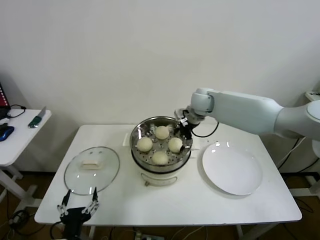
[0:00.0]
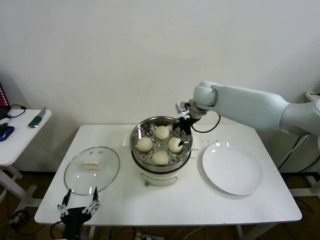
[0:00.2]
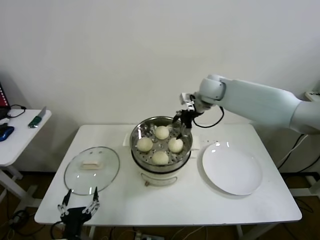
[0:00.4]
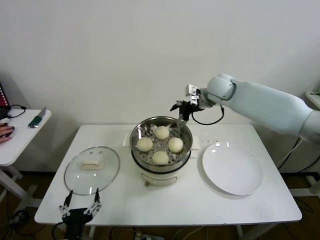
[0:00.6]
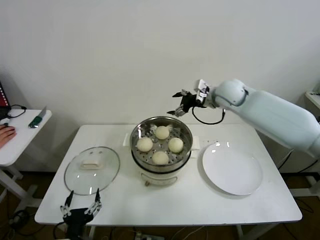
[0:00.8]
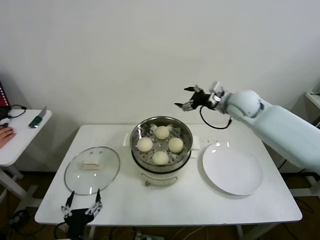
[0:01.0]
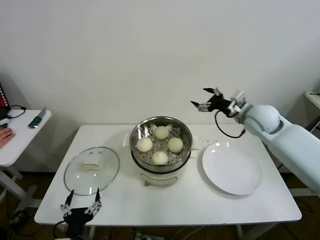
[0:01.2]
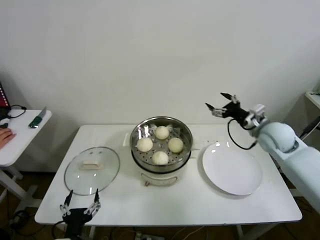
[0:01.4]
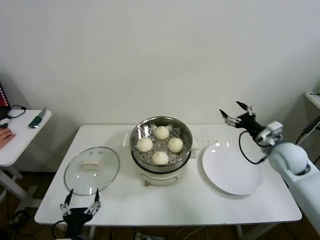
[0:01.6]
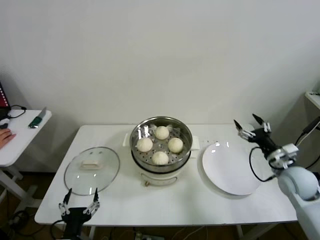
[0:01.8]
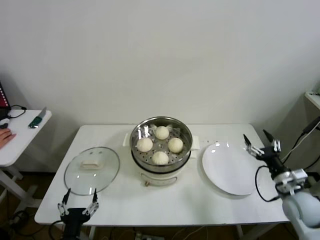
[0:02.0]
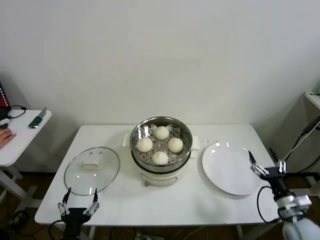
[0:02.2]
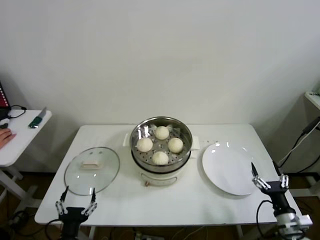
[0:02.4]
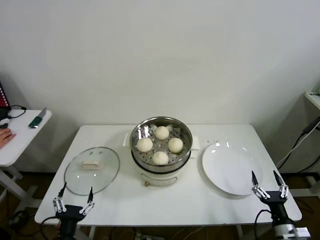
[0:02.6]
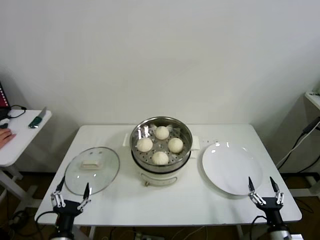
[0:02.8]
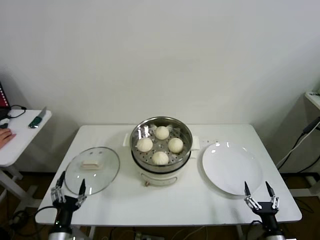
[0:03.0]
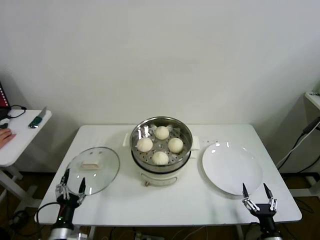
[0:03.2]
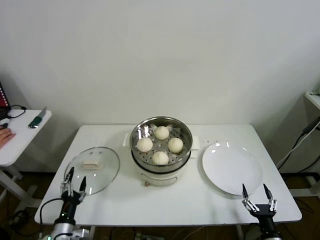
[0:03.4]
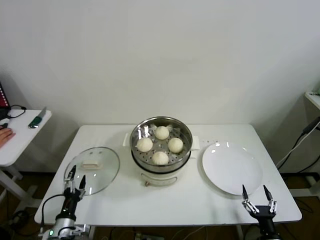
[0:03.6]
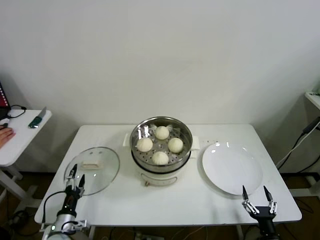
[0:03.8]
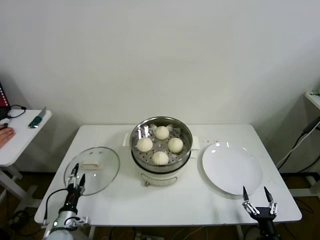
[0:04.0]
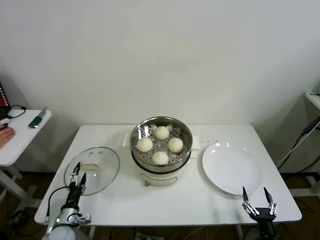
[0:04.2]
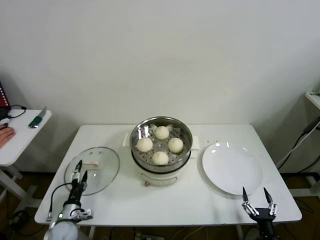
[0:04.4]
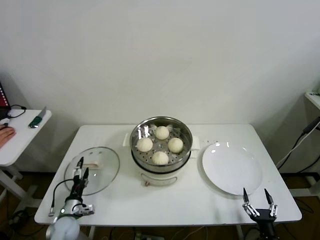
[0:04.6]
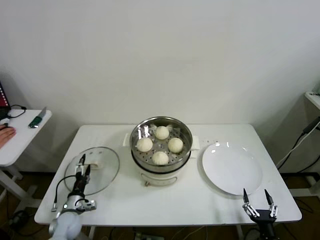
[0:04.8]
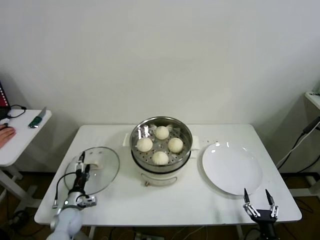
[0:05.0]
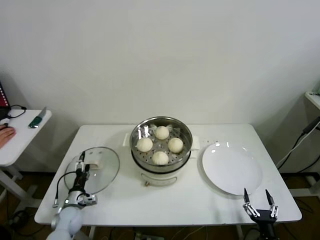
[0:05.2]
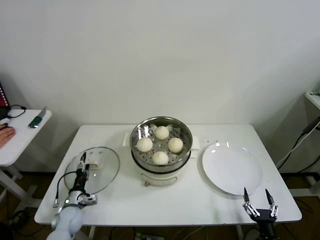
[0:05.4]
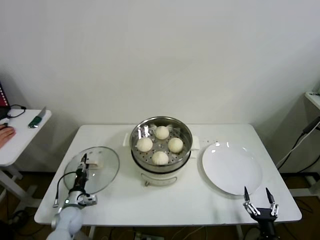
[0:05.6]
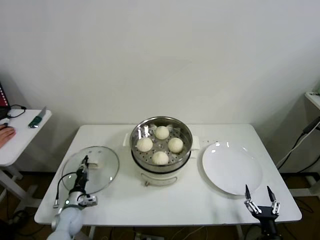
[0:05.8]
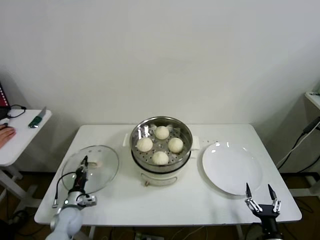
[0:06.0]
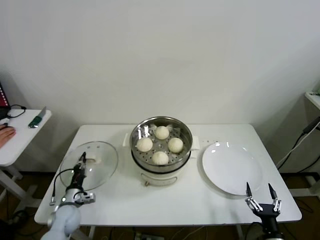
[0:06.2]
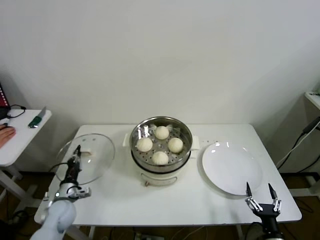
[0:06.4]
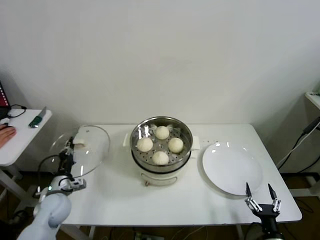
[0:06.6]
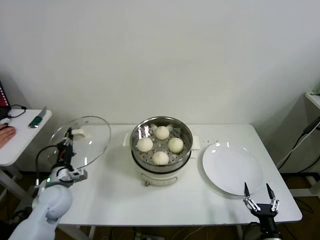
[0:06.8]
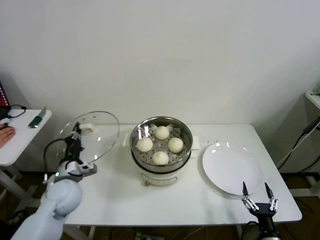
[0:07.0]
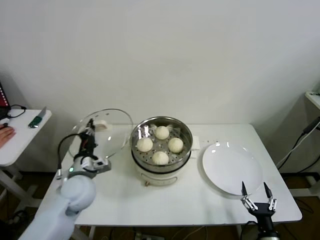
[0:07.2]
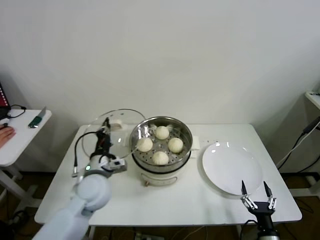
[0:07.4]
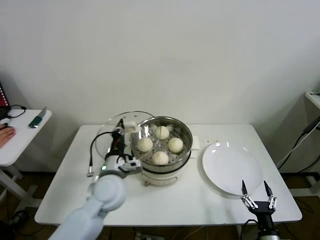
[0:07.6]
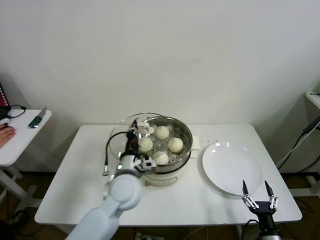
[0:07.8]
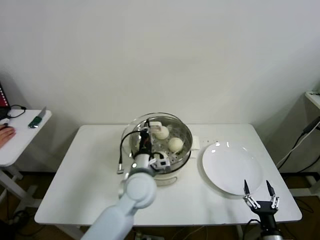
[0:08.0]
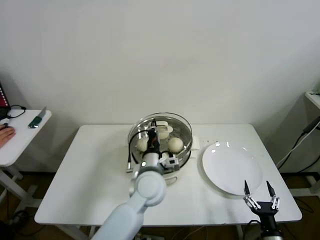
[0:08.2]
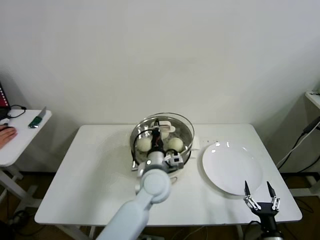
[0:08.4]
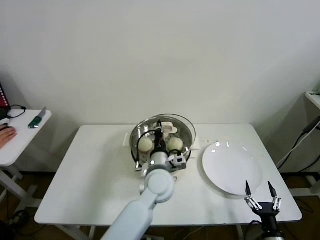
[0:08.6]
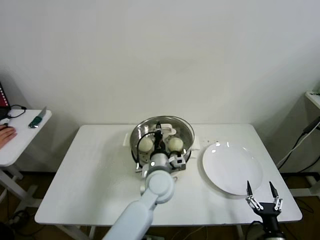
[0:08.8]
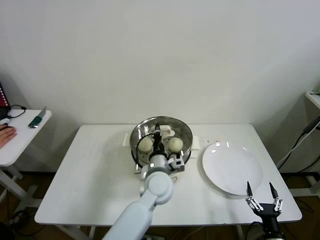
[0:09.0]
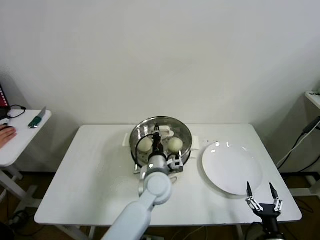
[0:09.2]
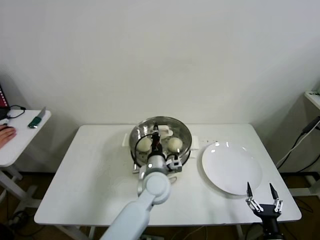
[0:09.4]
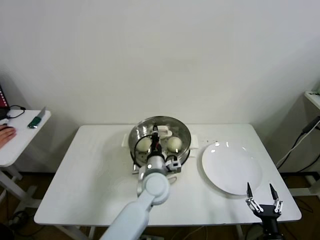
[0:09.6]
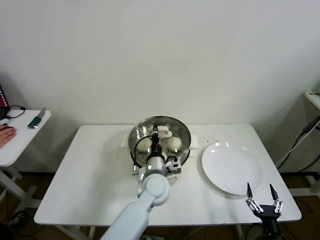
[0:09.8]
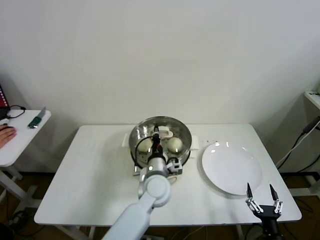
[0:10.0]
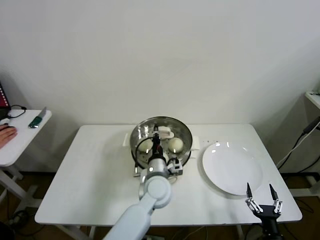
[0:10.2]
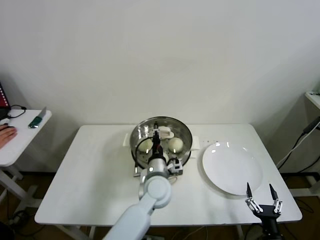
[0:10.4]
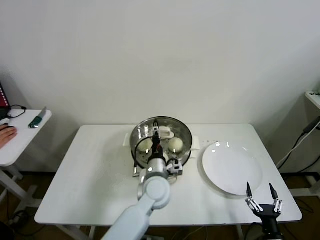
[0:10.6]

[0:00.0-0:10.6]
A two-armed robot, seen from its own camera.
Step, 0:00.0 to 0:05.8: Grasp the pot lid with left gripper.
Step, 0:06.0 to 0:10.2: Place the pot lid on the steamer with left gripper.
0:00.0 to 0:01.6: The right gripper goes some 30 cm to the right and backward.
0:01.6 to 0:03.0: The left gripper shifts some 5 cm to the left, while the right gripper travels backward and downward by roughly 35 cm.
0:03.0 to 0:04.6: The left gripper is displaced forward, downward and to the left by approximately 20 cm.
0:04.6 to 0:06.0: The left gripper closes its fingers.
0:06.0 to 0:07.6: The left gripper travels upward and to the right by some 30 cm.
0:07.6 to 0:09.0: The left gripper is displaced to the right by about 15 cm.
0:09.0 to 0:10.6: The left gripper opens.

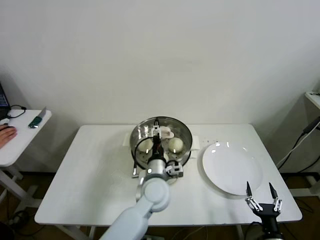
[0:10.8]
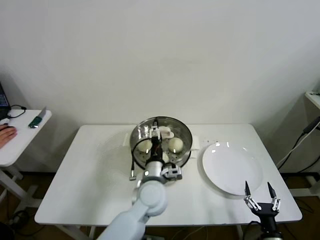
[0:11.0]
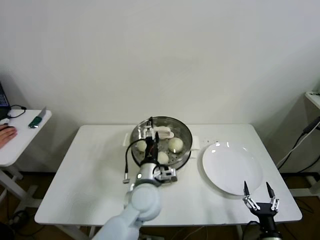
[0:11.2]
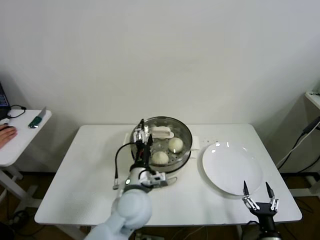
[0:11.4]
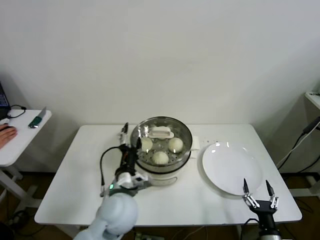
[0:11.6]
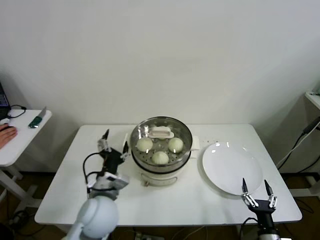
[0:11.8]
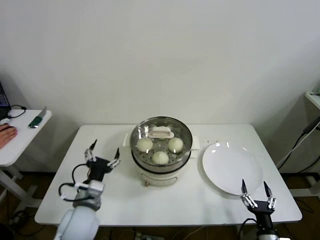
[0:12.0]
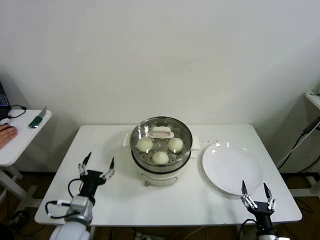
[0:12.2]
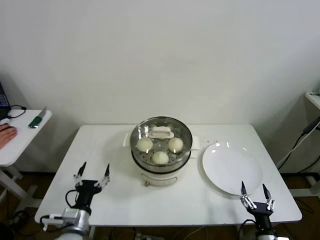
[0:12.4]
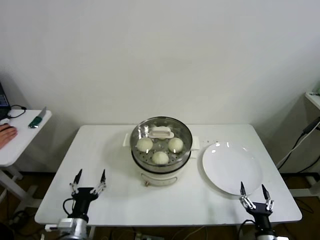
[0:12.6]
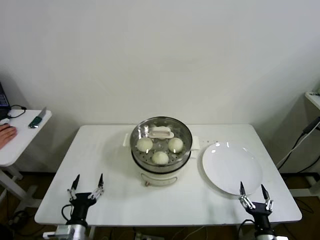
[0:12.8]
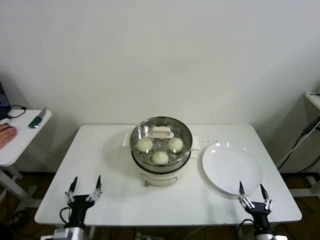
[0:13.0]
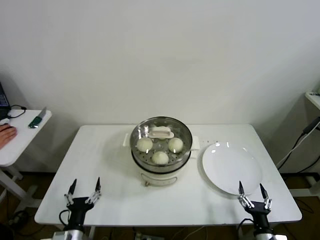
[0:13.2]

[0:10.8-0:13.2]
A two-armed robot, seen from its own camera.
0:10.8 to 0:12.0: The left gripper is displaced to the left and backward by roughly 20 cm.
0:12.0 to 0:13.2: The left gripper travels downward, backward and to the left by some 20 cm.
